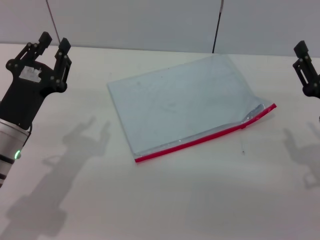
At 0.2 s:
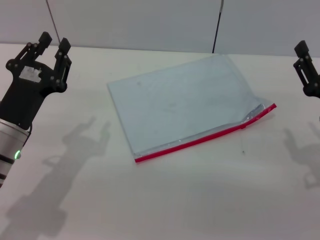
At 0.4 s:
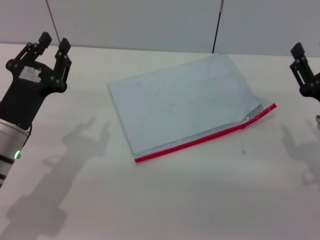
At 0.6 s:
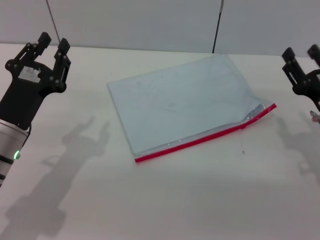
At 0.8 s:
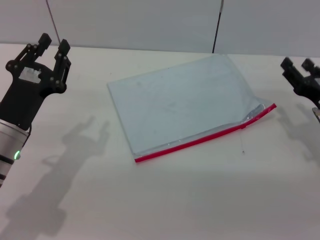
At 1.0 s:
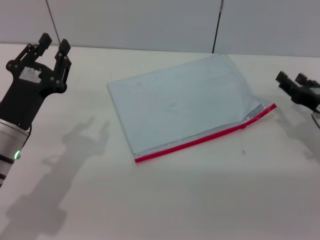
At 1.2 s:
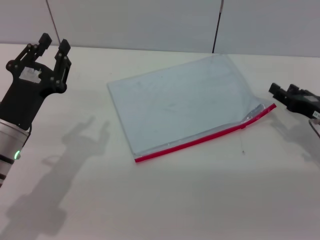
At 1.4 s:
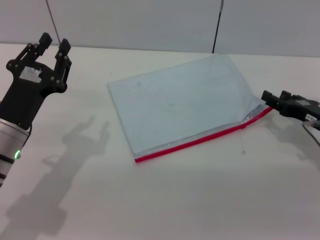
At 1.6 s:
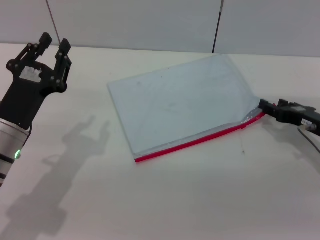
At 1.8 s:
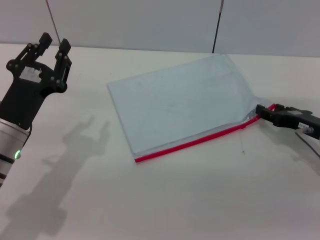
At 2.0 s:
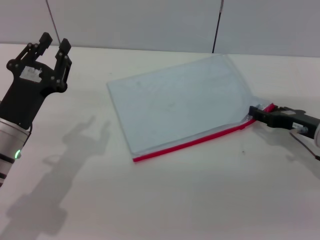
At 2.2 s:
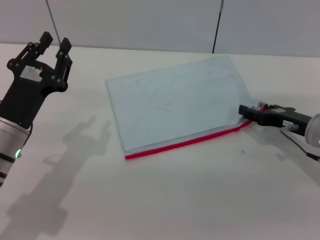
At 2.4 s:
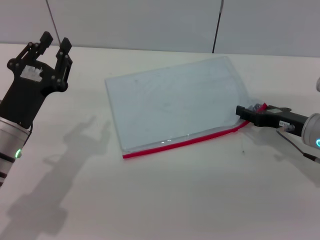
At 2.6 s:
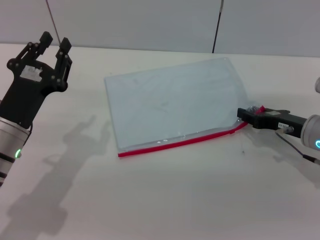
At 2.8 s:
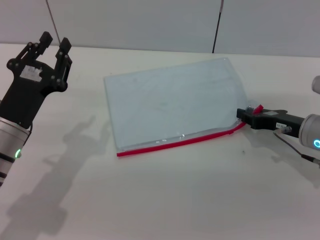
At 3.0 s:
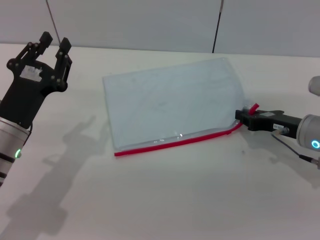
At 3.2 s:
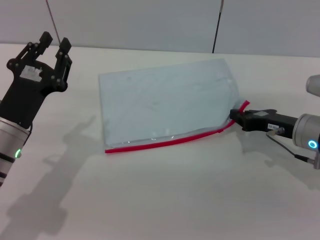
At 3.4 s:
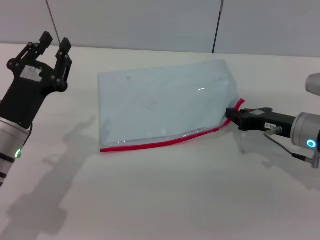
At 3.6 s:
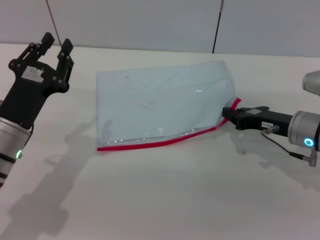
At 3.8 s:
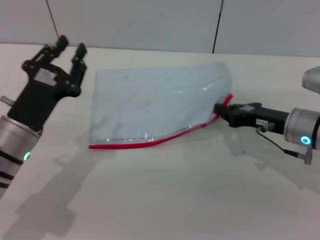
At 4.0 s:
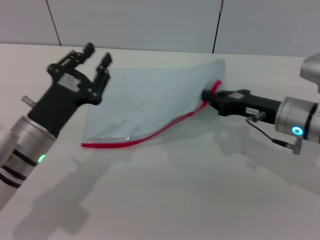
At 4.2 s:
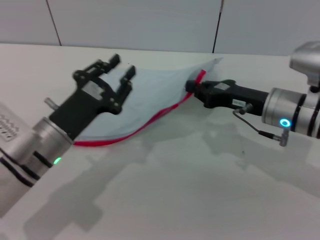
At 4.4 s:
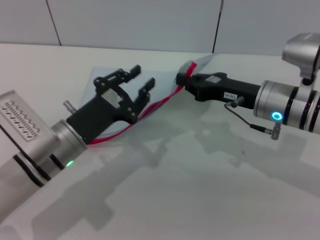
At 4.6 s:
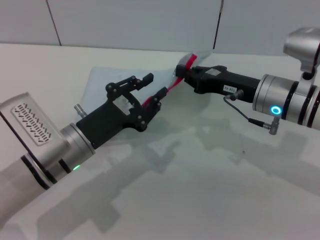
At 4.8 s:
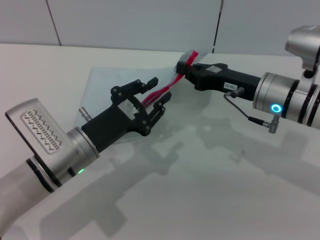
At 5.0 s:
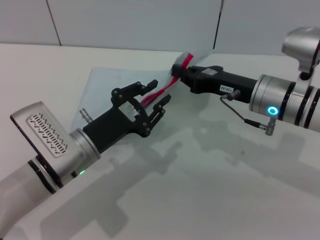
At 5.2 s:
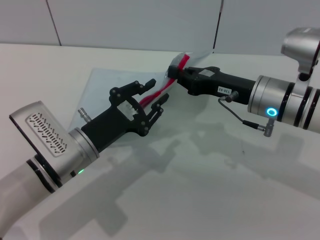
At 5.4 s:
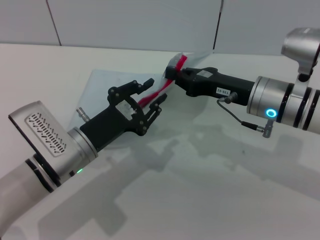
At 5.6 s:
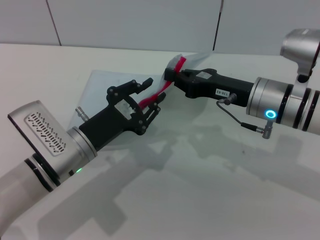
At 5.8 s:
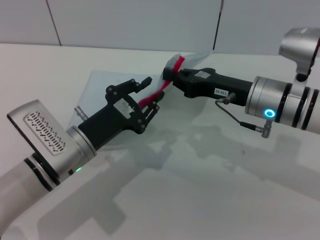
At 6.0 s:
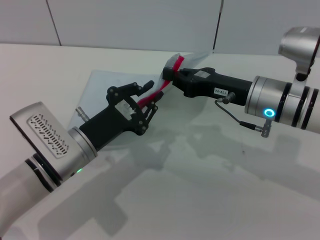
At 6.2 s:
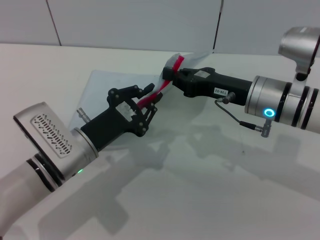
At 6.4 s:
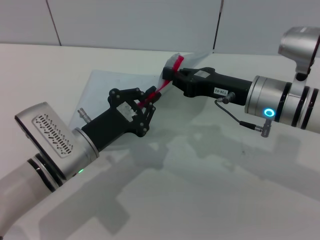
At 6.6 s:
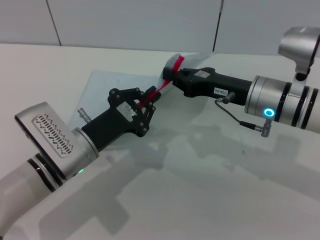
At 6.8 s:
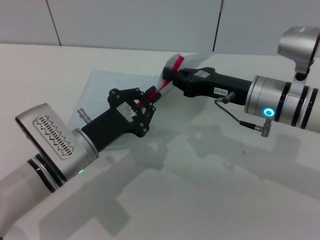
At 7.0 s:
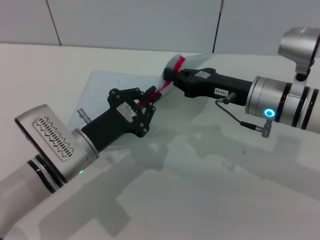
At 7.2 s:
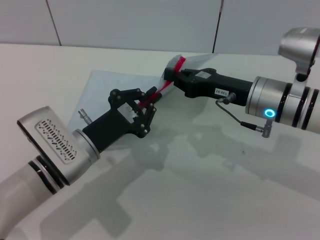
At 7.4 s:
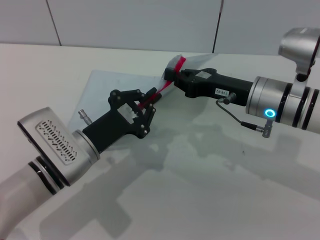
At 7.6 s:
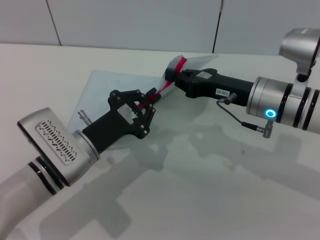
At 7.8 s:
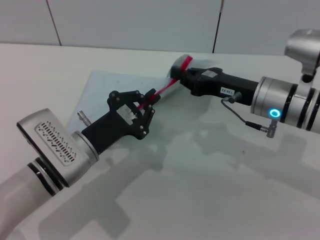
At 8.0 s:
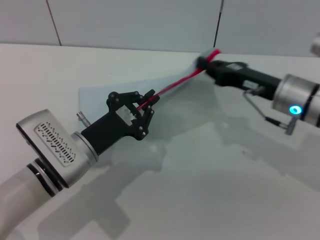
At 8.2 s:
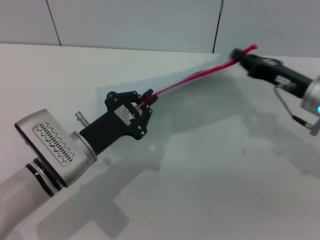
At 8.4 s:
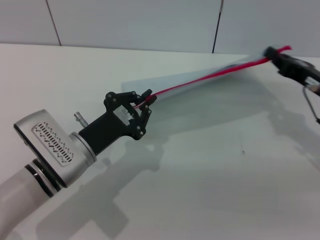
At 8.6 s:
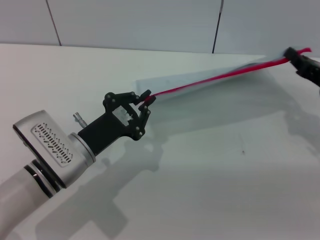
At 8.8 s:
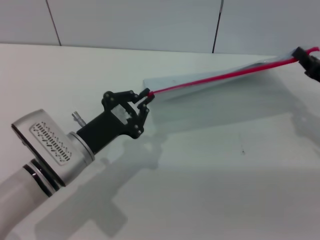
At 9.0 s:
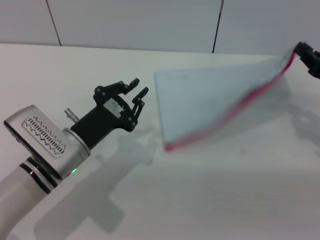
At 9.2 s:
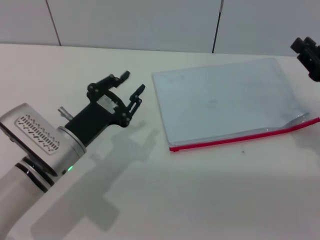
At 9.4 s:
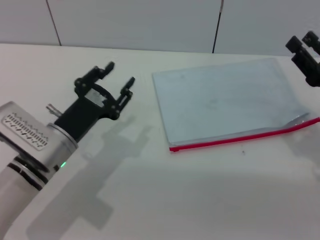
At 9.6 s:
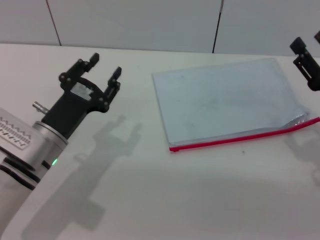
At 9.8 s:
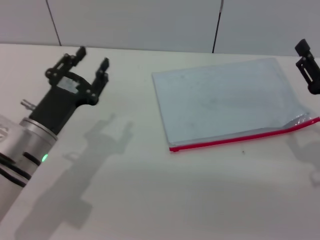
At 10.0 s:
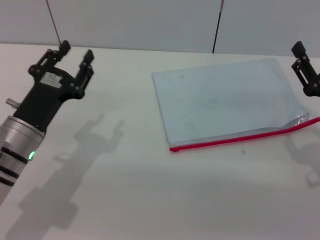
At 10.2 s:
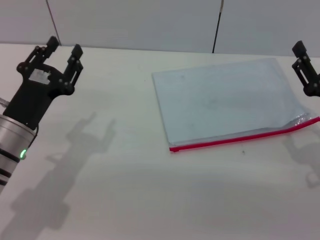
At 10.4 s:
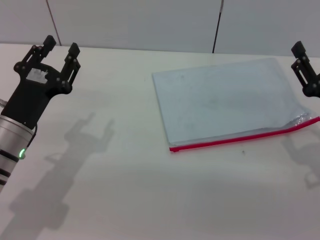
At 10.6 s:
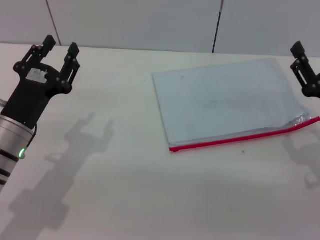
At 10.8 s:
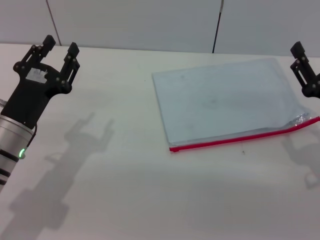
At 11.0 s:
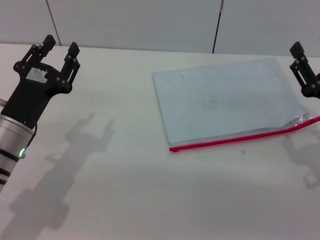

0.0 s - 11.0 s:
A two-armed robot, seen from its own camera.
Step, 0.0 s - 4.4 s: Pick up the transparent plastic bag with the right gripper.
Step, 9.0 s - 9.4 s: Place the transparent plastic bag.
0.0 s - 1.6 s: The right gripper moves forward, roughly 10 cm.
1.6 s - 3.2 s: The right gripper closes its fingers.
3.2 s - 4.8 s: The right gripper heads to the left and upward, covering roughly 10 cm, while the left gripper is displaced to the right by some 10 cm.
4.8 s - 6.2 s: The grippers make only small movements.
6.2 s - 7.8 s: The left gripper closes up.
7.8 s - 9.4 s: The left gripper opens up, while the right gripper goes about 15 cm to the right and backward.
9.4 s - 11.0 s: The left gripper moves roughly 5 cm, and opens up. Meanwhile the right gripper opens up.
